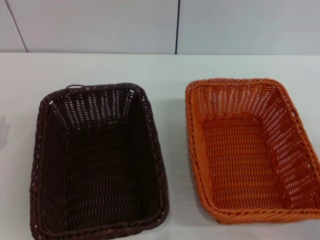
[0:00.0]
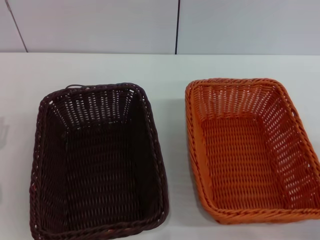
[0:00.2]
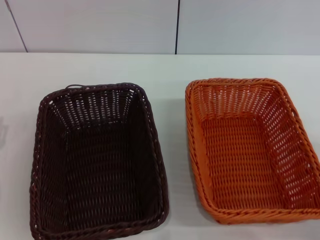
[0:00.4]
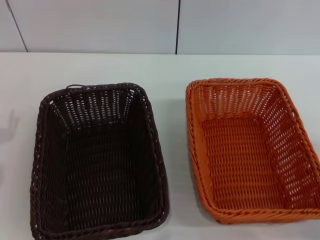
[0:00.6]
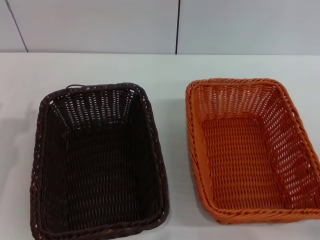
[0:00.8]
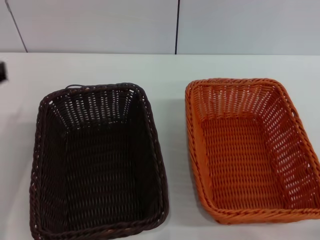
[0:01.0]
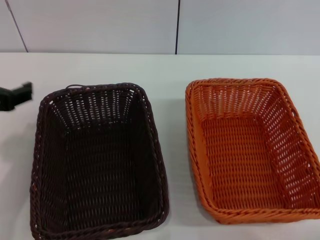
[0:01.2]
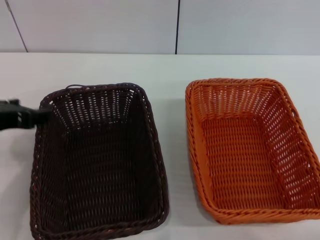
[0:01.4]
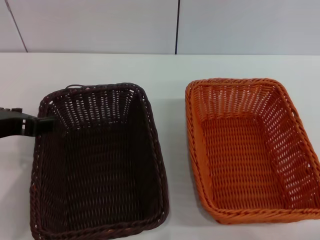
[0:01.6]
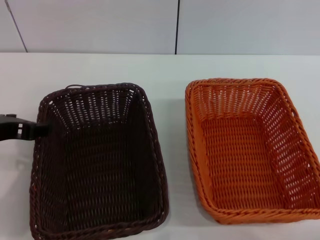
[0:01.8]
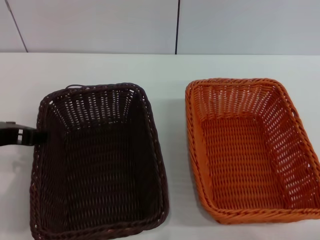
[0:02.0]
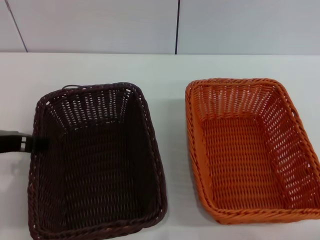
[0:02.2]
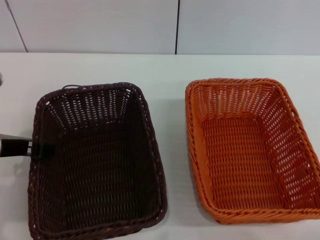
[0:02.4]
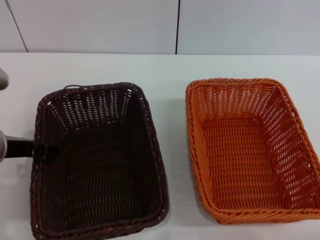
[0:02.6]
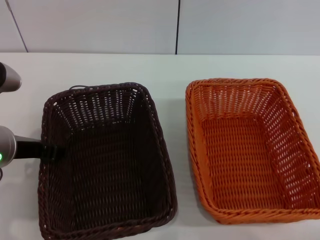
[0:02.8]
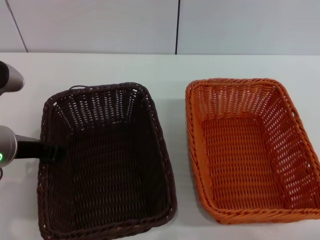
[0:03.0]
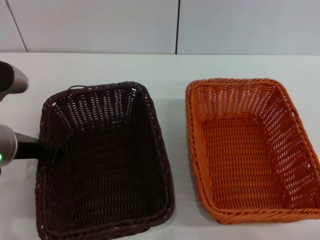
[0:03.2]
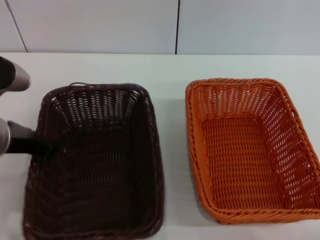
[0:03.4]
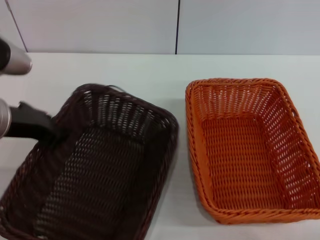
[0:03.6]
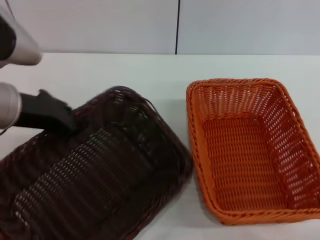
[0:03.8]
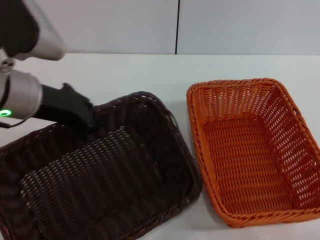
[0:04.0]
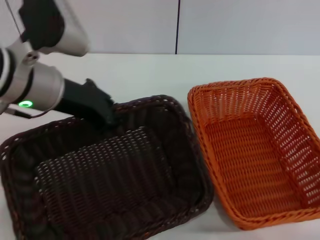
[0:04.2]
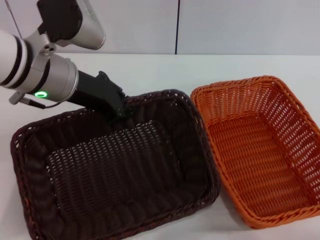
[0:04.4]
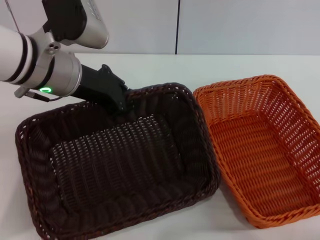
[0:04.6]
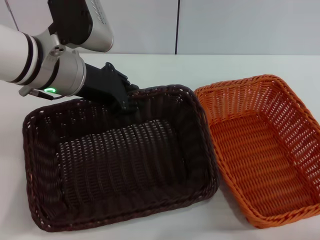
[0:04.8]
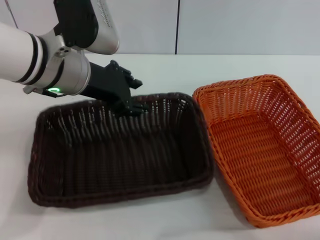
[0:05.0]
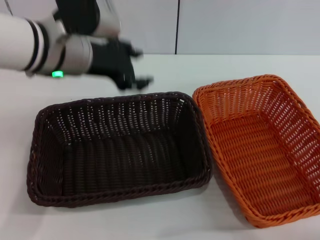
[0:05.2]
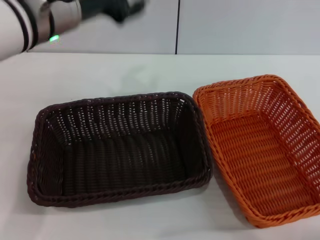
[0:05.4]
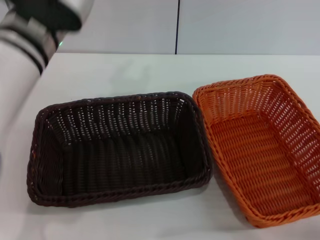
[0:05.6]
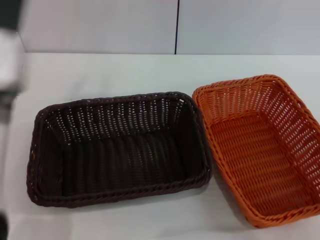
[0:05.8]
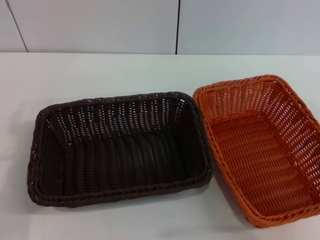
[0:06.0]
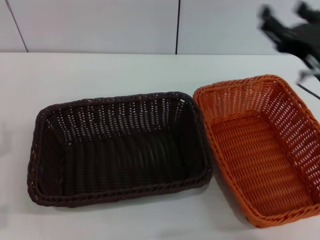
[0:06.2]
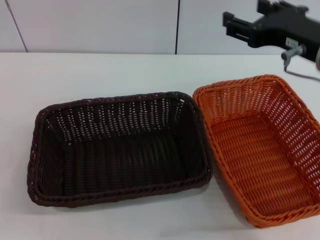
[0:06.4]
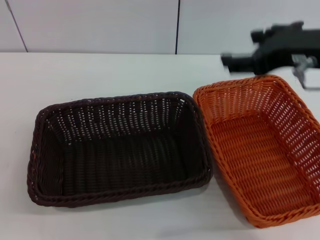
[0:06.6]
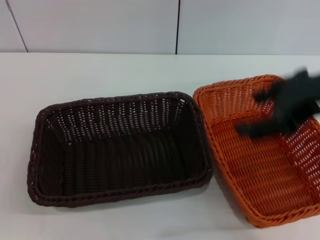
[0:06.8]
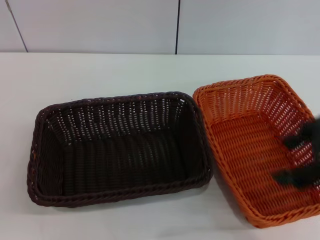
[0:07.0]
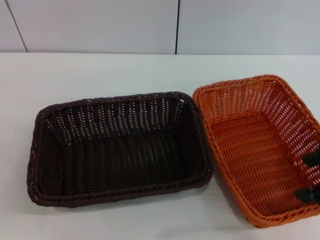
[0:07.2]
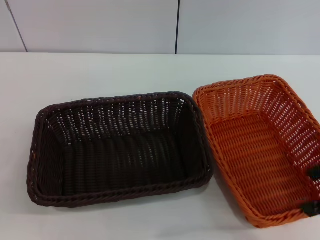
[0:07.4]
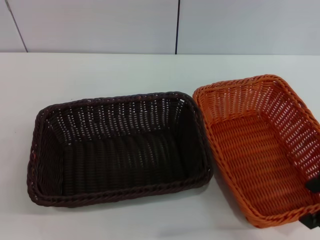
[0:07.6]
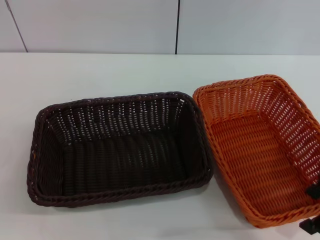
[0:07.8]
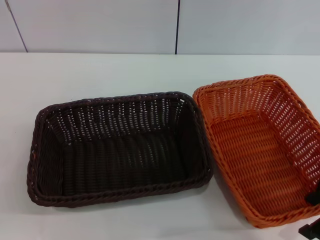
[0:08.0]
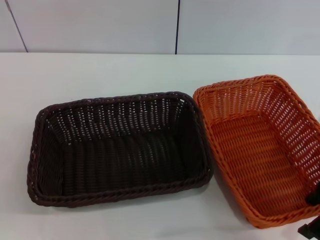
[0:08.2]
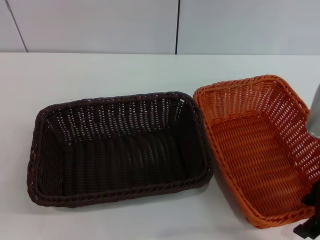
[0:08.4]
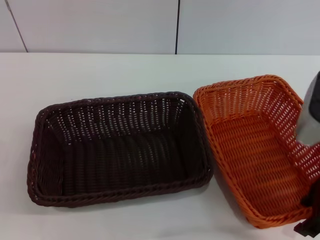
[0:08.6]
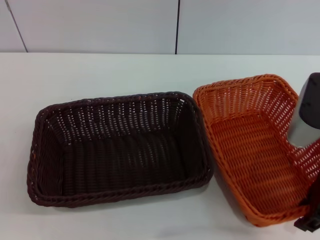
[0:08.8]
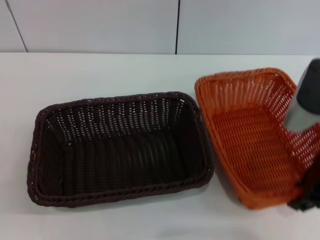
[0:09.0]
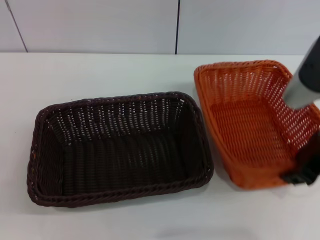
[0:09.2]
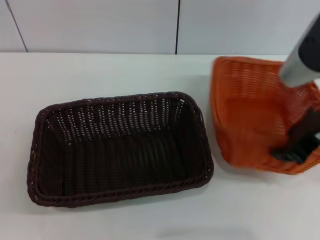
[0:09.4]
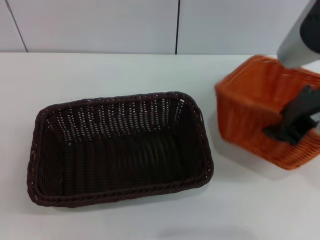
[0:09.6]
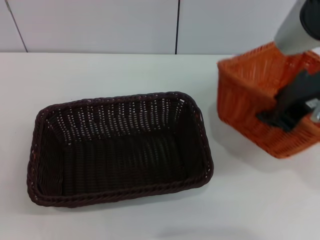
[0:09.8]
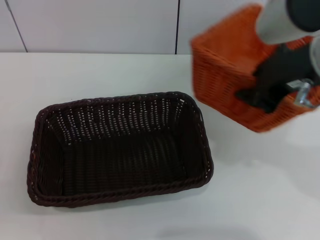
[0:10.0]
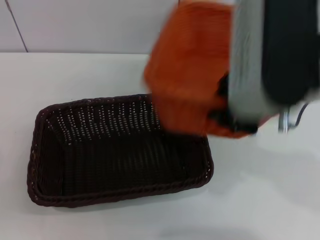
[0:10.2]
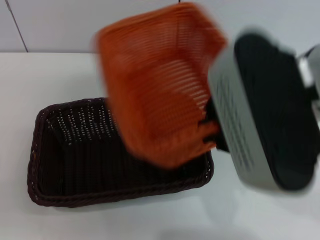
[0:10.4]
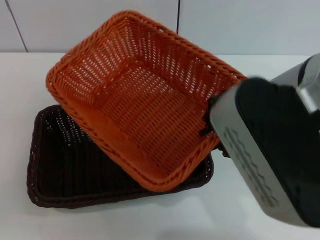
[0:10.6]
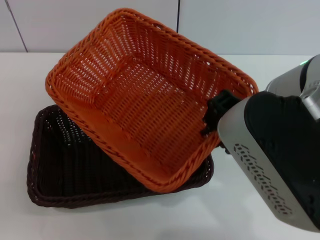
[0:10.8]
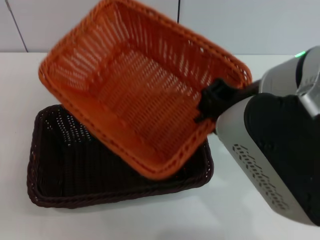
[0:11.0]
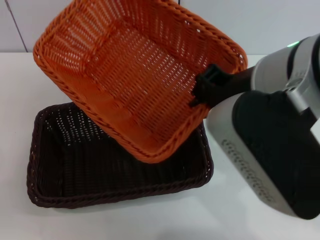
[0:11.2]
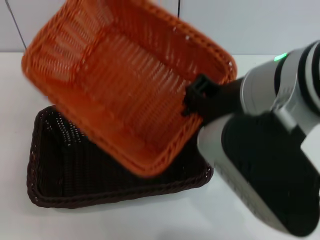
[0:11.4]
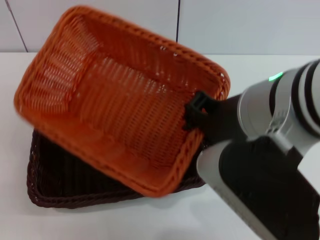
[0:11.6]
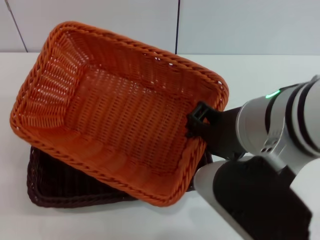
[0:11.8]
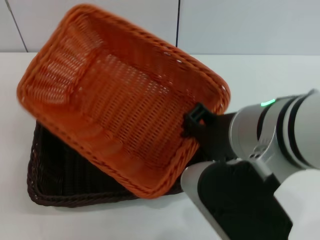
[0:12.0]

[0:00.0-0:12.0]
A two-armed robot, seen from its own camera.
Step, 0:00.0 to 0:03.4: Pick up the dark basket with the left gripper.
Step, 0:03.8 to 0:05.0: Place the dark basket in the center of view with the left gripper.
Step, 0:05.2 to 0:09.0: Pick up the light basket with the right gripper.
0:00.0 to 0:01.6: The left gripper shifts approximately 15 cm upward and to the right.
0:01.6 to 0:03.0: The left gripper changes place by roughly 5 cm.
0:03.0 to 0:04.4: The left gripper moves forward, to the right and upward, about 10 cm, and closes.
0:04.4 to 0:06.0: The left gripper moves backward, downward and to the left, roughly 15 cm, and opens up. Meanwhile the right gripper shifts roughly 20 cm upward, to the left and forward.
0:07.6 to 0:09.0: The right gripper heads downward, covering some 5 cm, and closes its fingers.
0:09.0 to 0:10.4: The right gripper moves to the left and upward, about 15 cm, and closes.
0:10.4 to 0:12.0: The right gripper ends up approximately 5 cm from where it was.

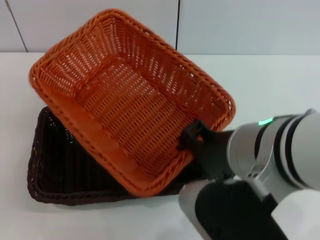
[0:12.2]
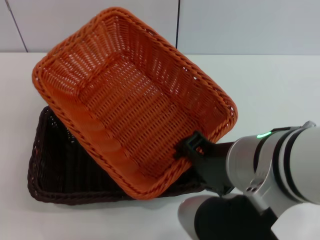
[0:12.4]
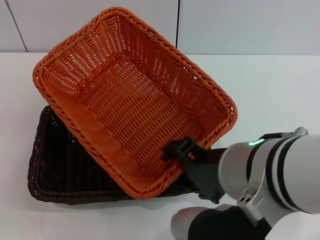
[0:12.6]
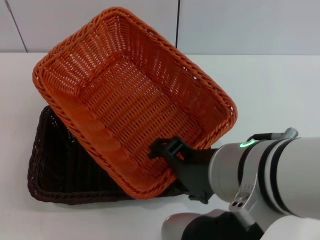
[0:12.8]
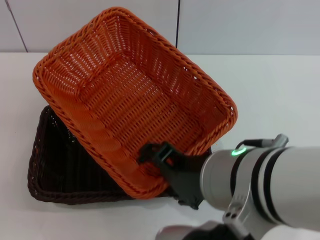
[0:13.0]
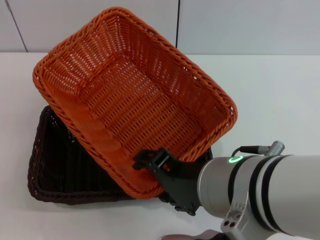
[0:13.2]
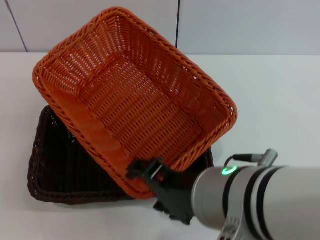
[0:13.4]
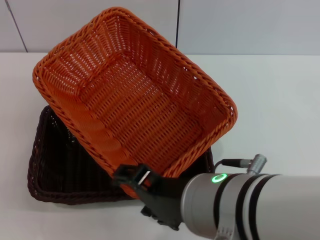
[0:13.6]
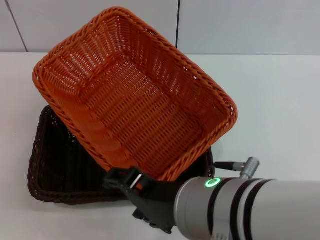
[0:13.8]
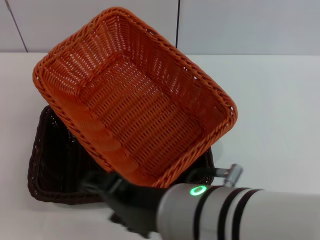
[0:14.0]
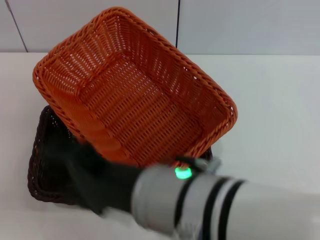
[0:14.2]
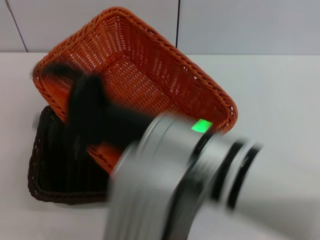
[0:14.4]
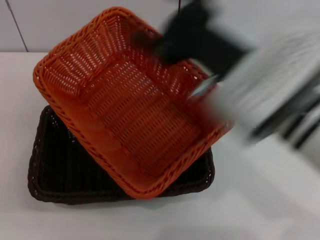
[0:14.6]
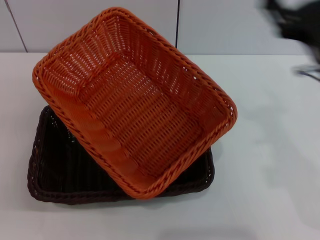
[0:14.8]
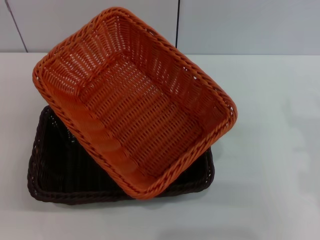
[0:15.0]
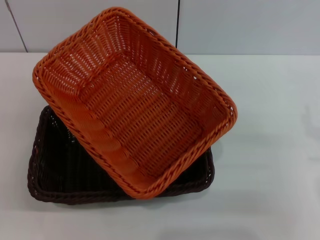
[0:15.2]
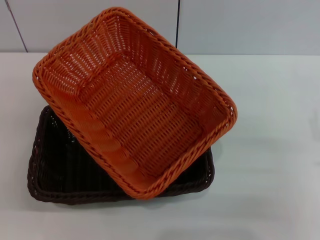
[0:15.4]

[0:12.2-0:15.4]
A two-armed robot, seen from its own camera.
0:12.2 to 0:13.8: The right gripper shifts by some 5 cm, and opens its fingers.
0:13.8 to 0:15.4: The right gripper goes some 25 cm to the right and downward.
